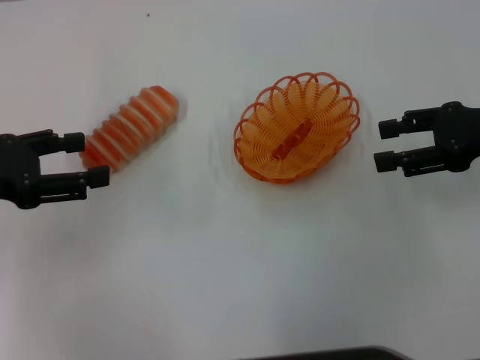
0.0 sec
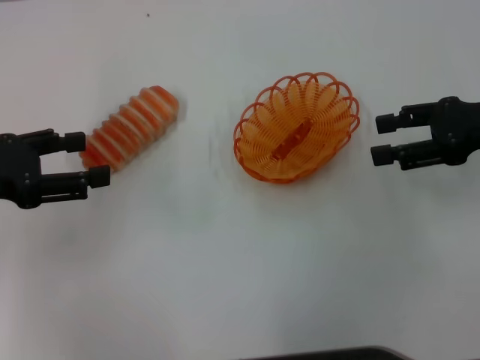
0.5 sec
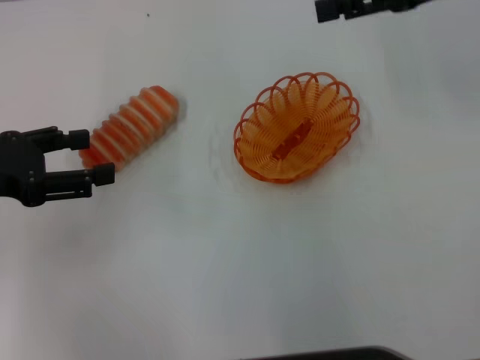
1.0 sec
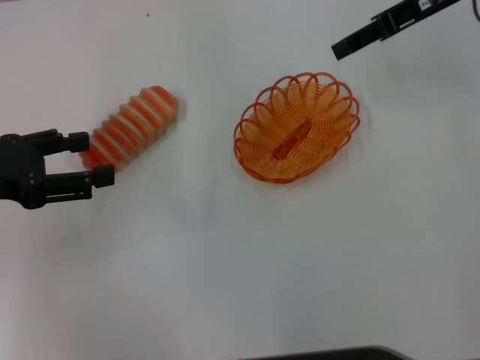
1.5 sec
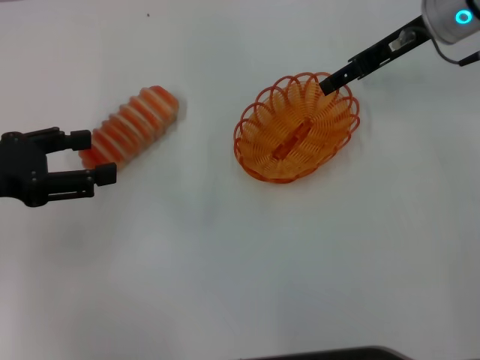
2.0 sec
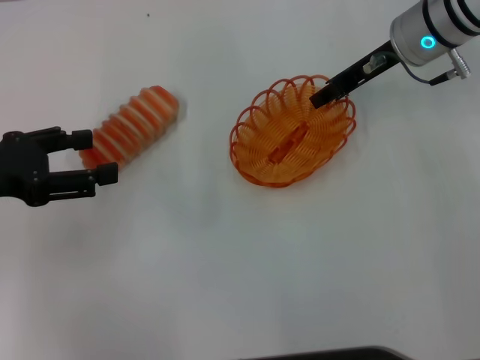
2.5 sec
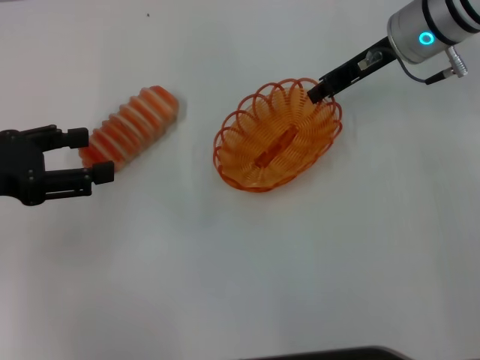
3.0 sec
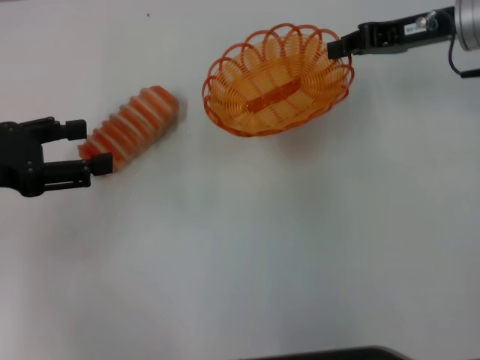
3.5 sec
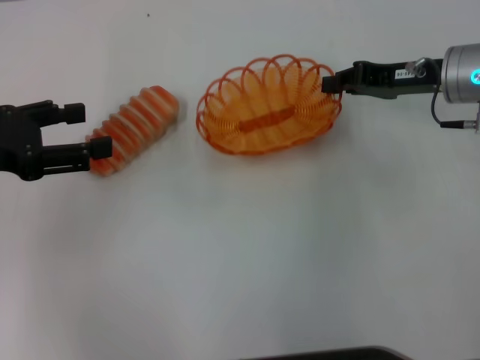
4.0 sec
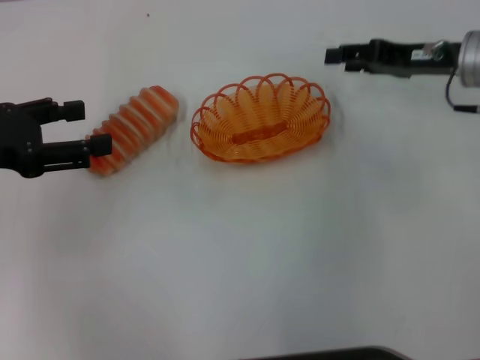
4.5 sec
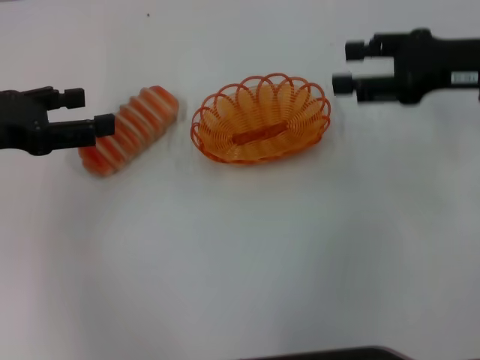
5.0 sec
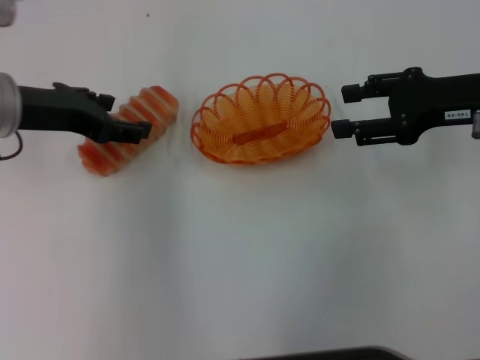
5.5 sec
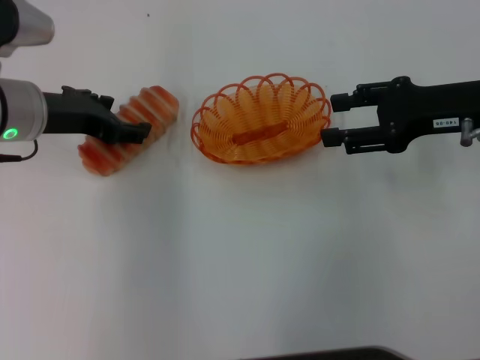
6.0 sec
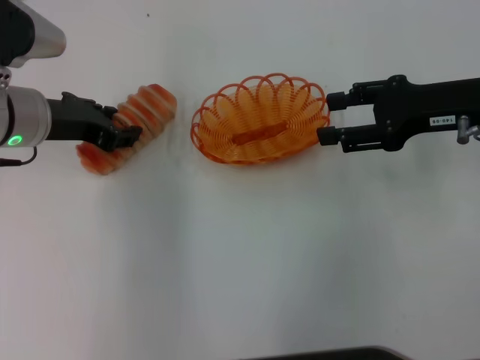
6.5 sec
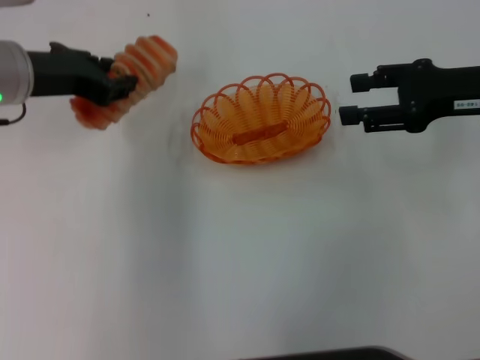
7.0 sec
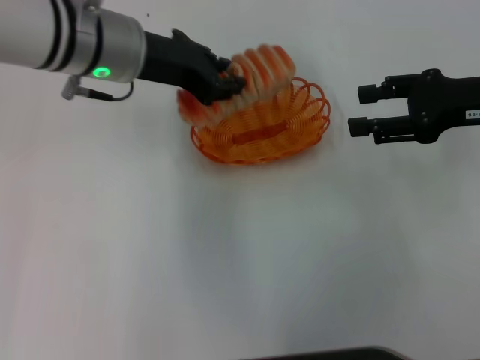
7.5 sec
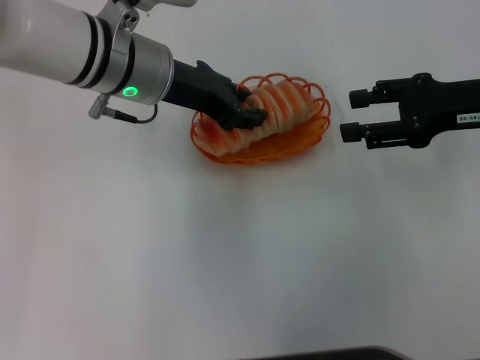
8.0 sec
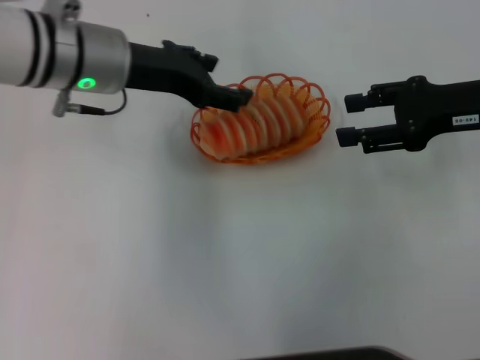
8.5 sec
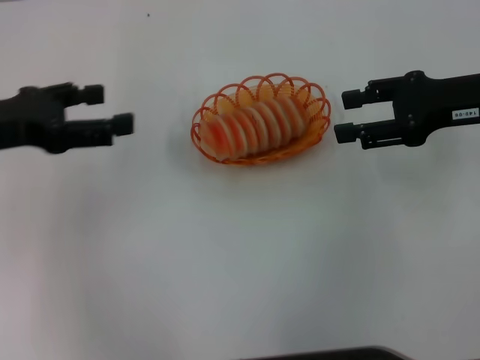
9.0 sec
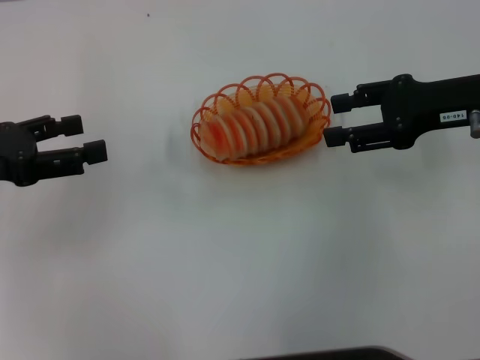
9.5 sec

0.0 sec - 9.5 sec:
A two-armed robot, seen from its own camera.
Step, 0.0 sec - 3.0 sec: Pick up the basket with the right gripper.
Step, 3.5 sec - 4.5 sec: Place the basket in the center of view with the right gripper.
Step, 5.0 sec - 6.5 sec: Pick up the long bread with the left gripper.
Step, 7.0 sec - 8.0 sec: Place the long bread into the basket with the left gripper.
0.0 sec - 2.0 sec: The right gripper moves forward and to the left, some 15 cm.
2.0 sec - 4.0 sec: The right gripper shifts some 10 cm downward and backward, and closes up.
4.0 sec - 5.5 sec: The right gripper is displaced backward by roughly 5 cm, and opens up. Meanwhile the left gripper travels to the right and forward by roughly 10 cm.
5.5 sec - 7.5 sec: The left gripper travels to the right by approximately 10 cm, and closes its fingers.
7.5 sec - 9.5 sec: The left gripper shifts some 20 cm to the left and backward, and opens its fingers.
